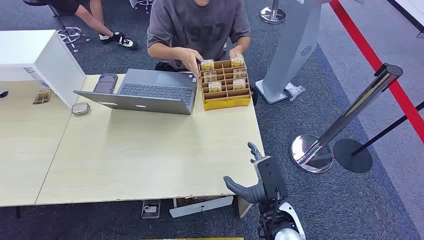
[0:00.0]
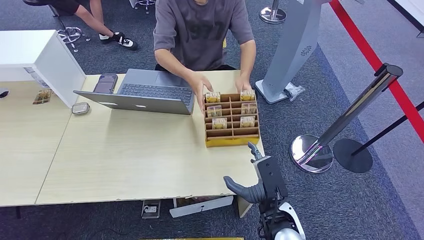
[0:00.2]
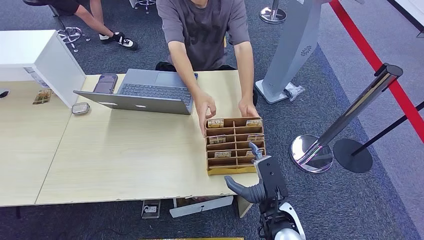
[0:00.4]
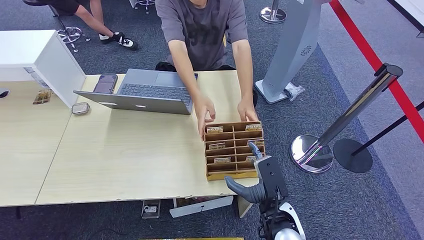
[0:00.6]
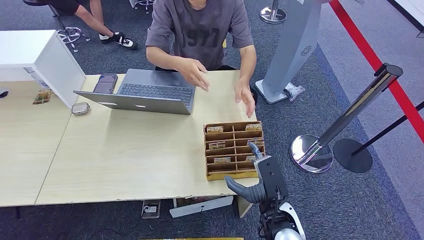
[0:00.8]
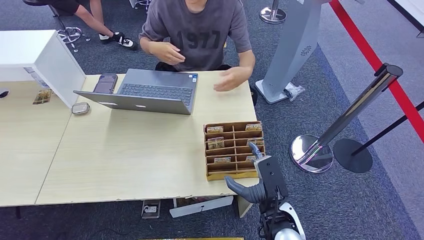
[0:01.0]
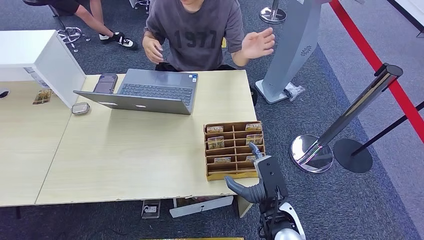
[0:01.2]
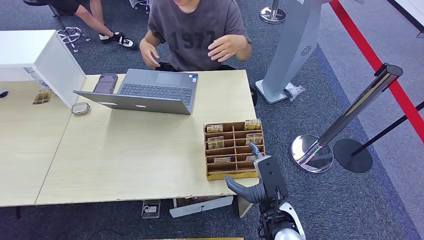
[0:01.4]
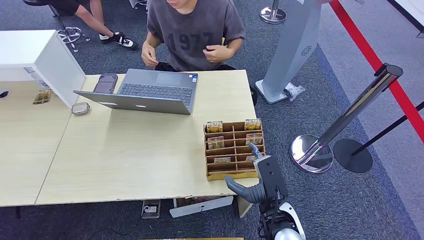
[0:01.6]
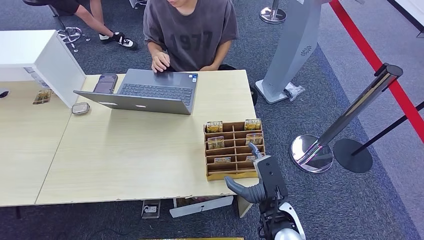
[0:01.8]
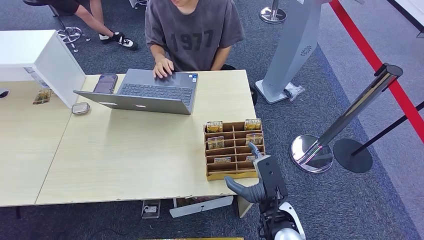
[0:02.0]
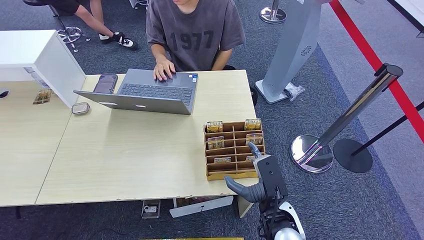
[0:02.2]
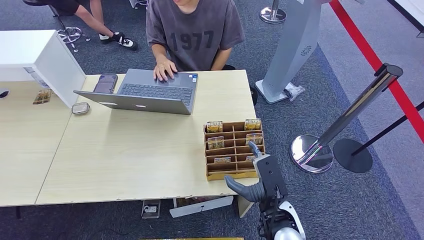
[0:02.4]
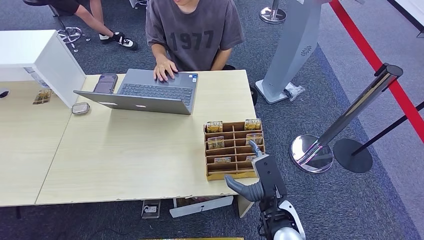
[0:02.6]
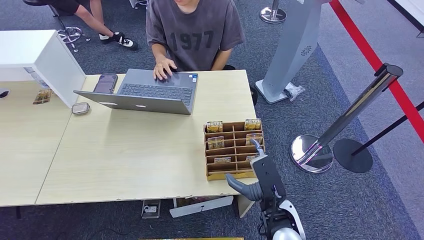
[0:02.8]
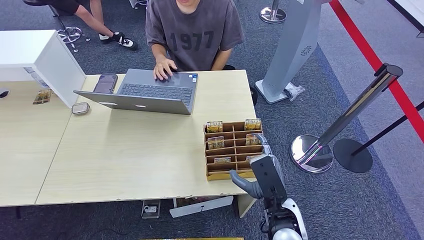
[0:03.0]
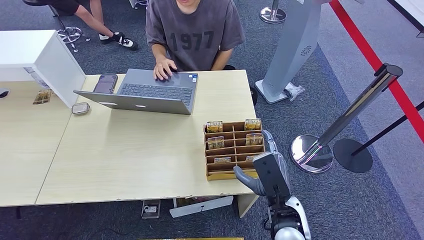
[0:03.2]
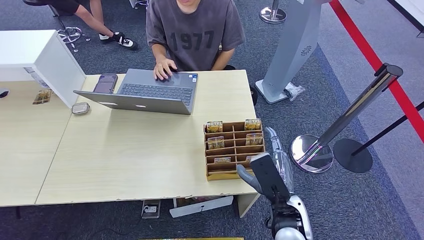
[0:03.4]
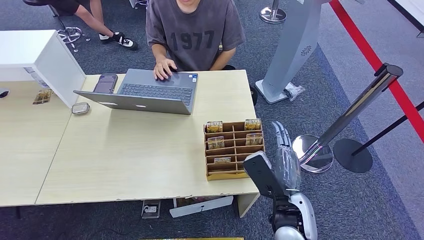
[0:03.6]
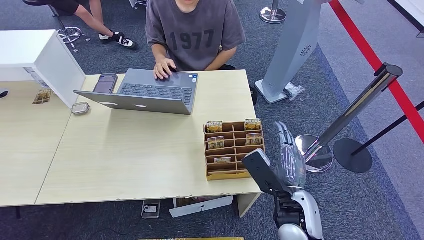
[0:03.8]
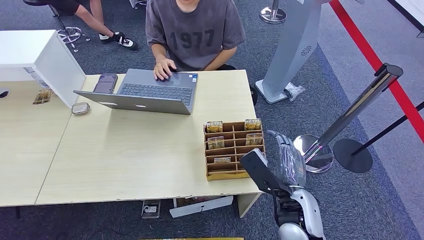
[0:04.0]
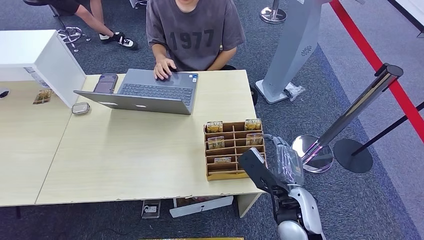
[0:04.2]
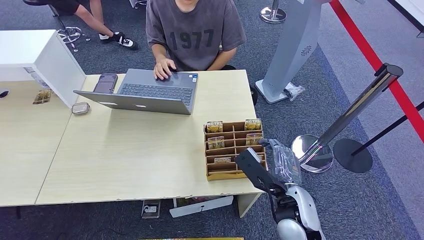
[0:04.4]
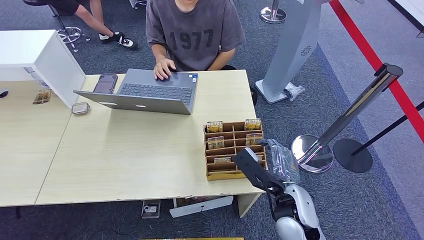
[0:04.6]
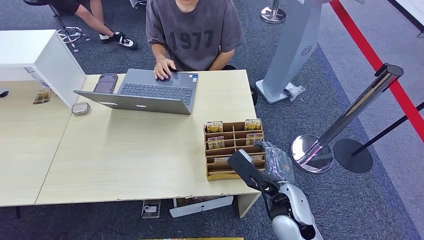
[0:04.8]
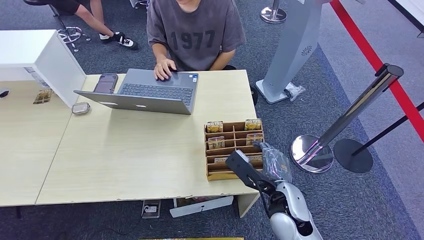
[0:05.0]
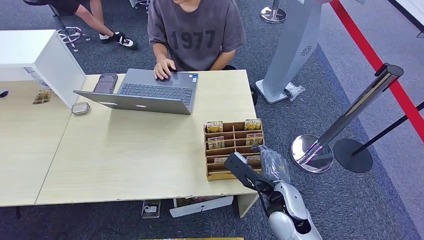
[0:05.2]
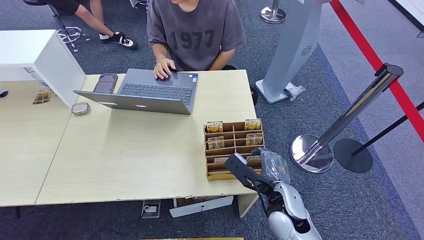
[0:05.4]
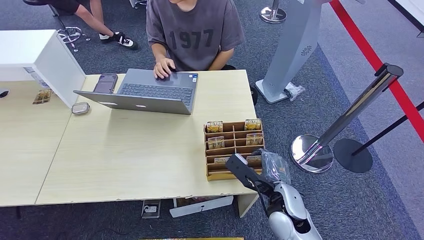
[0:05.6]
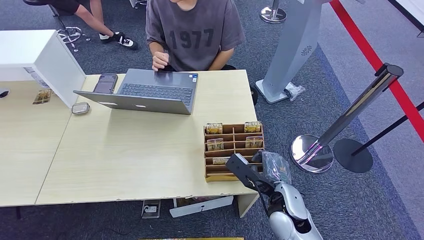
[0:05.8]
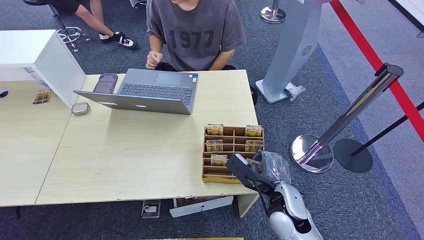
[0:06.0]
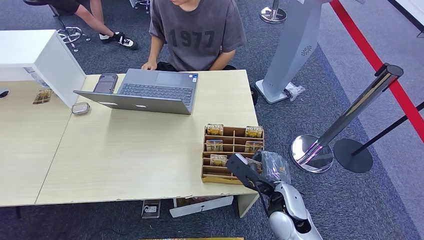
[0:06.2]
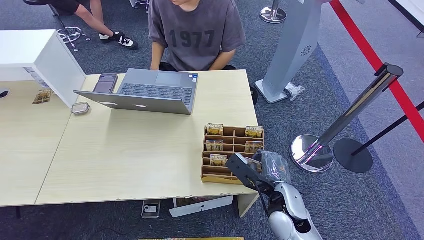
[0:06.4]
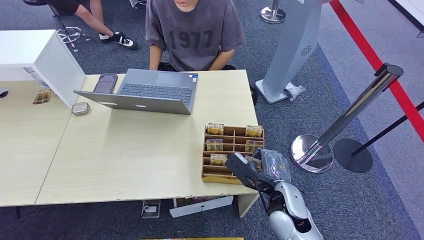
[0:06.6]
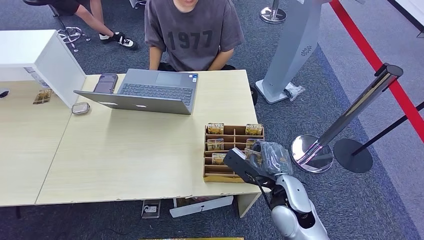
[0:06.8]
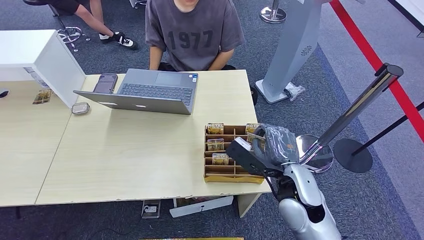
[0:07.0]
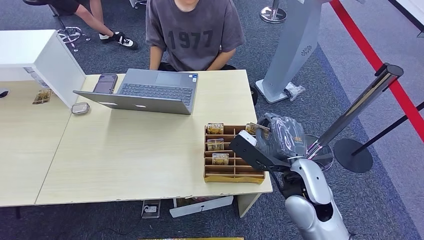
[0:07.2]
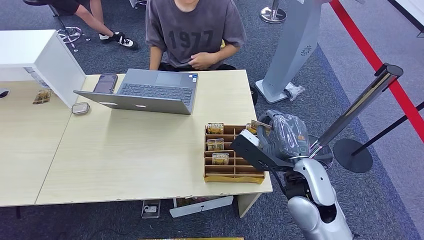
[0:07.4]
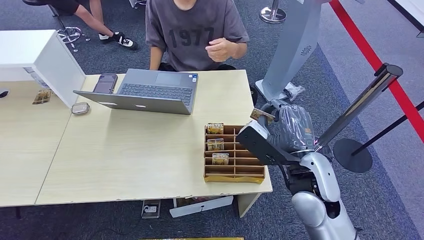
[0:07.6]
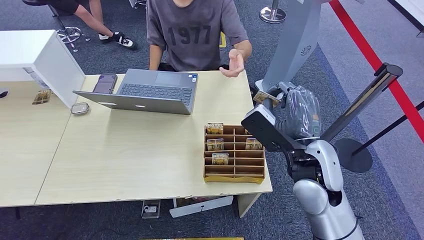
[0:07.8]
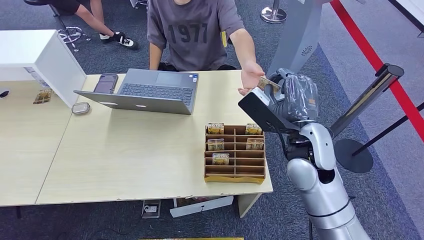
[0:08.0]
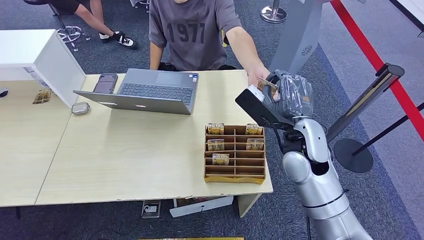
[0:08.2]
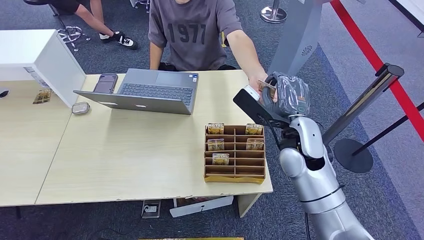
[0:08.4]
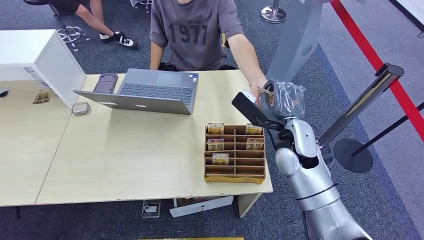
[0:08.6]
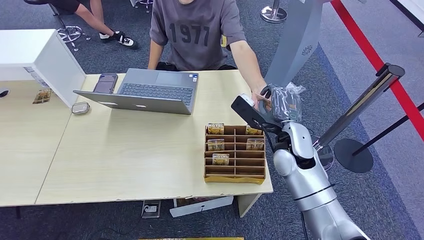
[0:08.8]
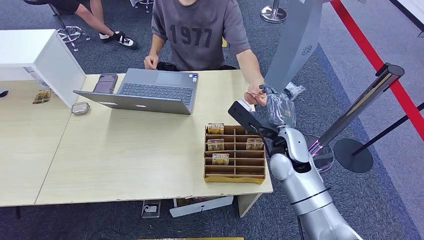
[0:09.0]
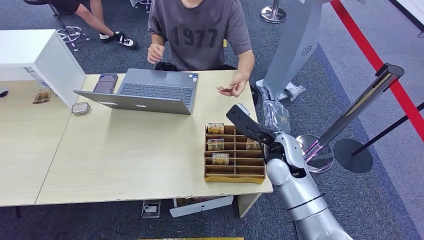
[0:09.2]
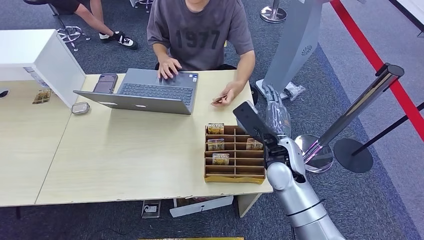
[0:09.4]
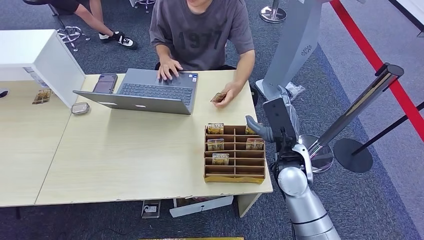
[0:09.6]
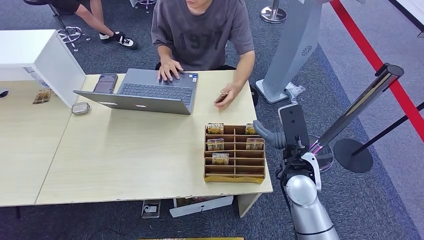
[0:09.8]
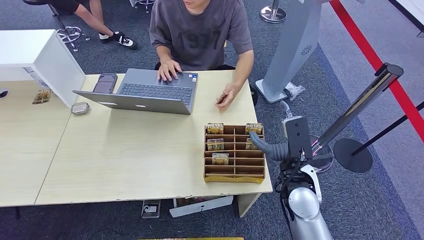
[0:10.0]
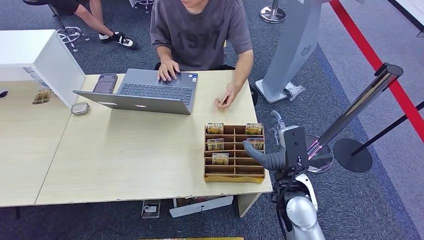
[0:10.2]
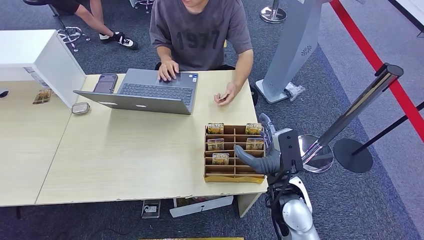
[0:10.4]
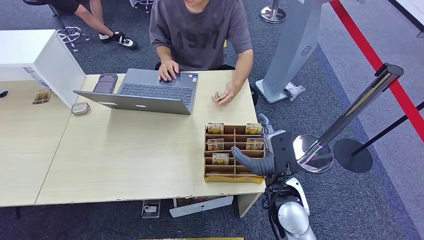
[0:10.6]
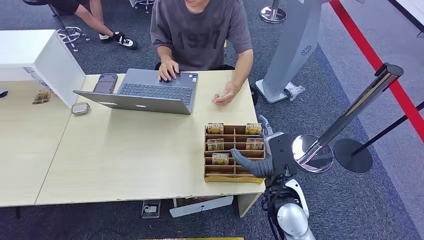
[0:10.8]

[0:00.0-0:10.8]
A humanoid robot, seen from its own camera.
Step, 0:00.0 to 0:08.0: Pick up the room card from the card holder.
Step, 0:08.2 to 0:10.6: Hand the room card to the target.
0:01.6 to 0:03.0: The hands stay close to where they were, moving slightly.
0:04.6 to 0:06.2: The hands move only a little.
0:06.2 to 0:07.8: The right hand travels upward by approximately 15 cm.
0:07.8 to 0:09.2: The right hand is displaced downward and forward by roughly 10 cm.
0:09.2 to 0:10.8: The right hand heads backward, covering about 10 cm.
